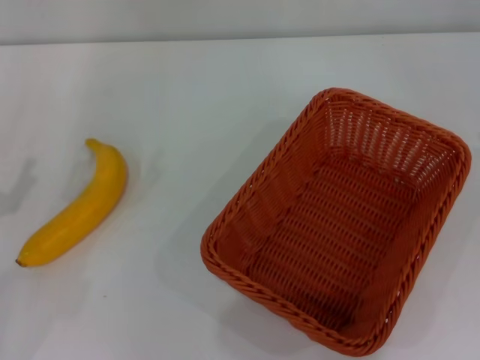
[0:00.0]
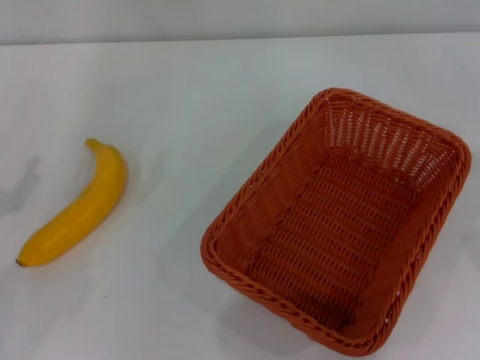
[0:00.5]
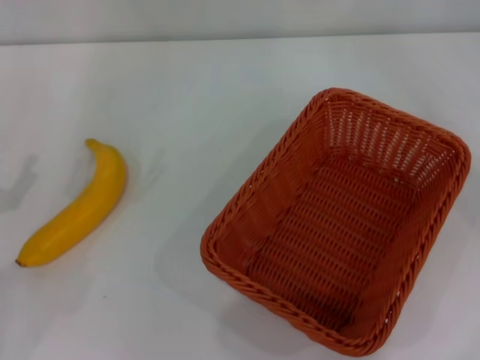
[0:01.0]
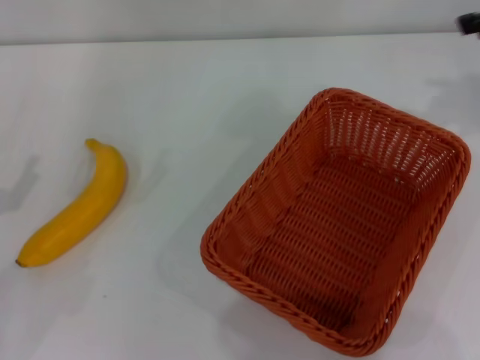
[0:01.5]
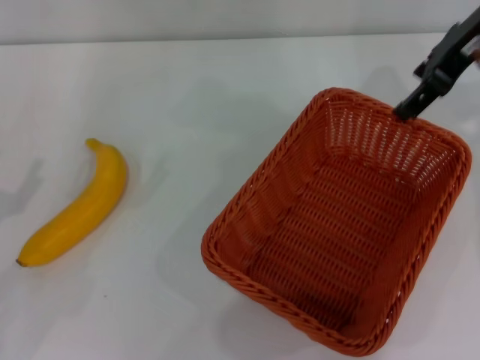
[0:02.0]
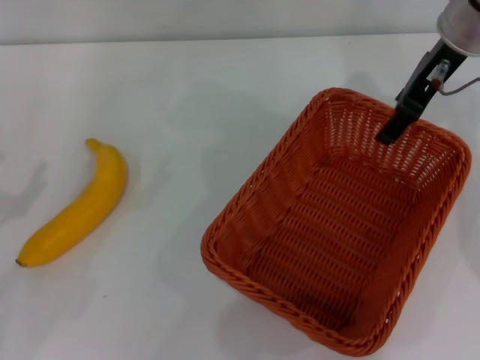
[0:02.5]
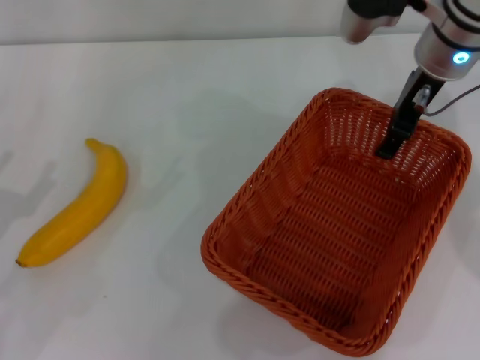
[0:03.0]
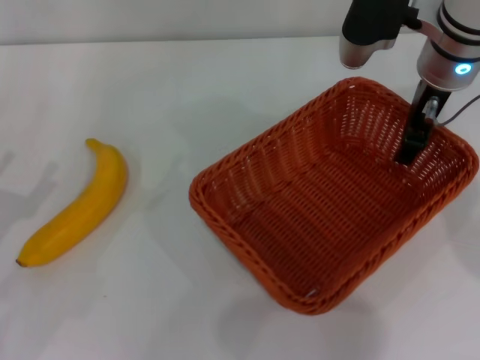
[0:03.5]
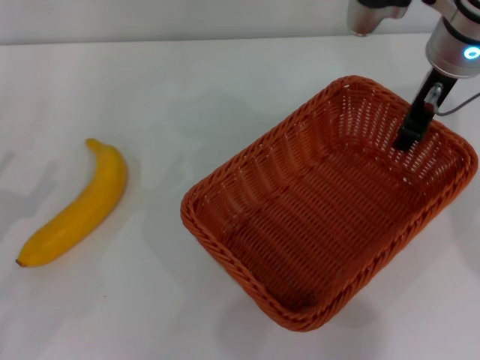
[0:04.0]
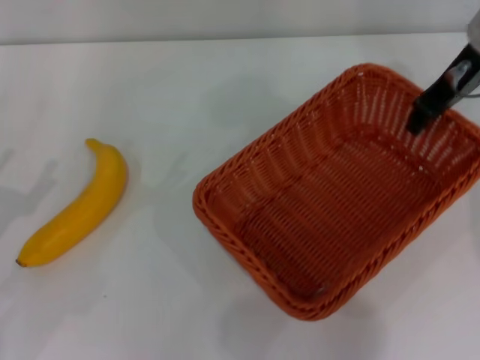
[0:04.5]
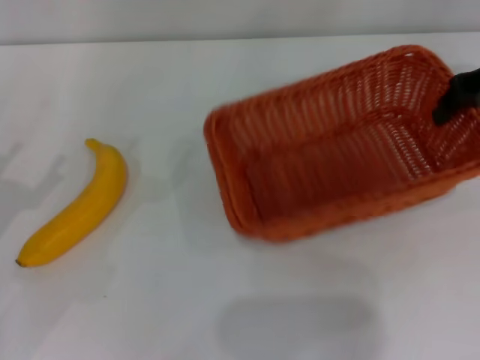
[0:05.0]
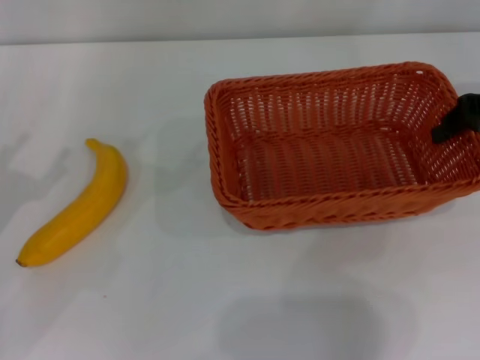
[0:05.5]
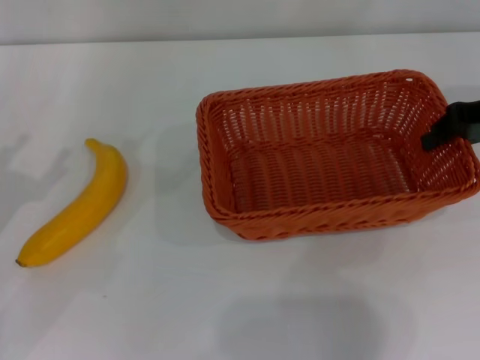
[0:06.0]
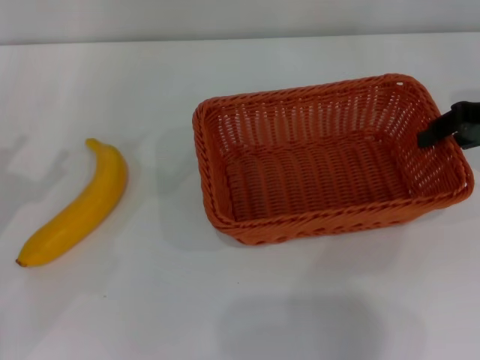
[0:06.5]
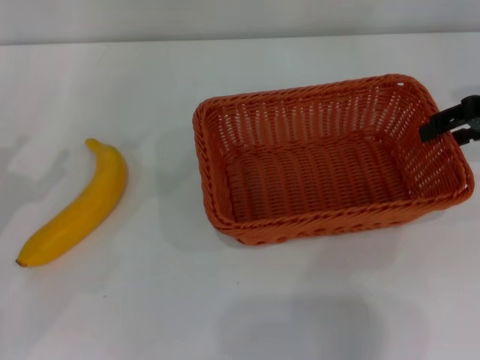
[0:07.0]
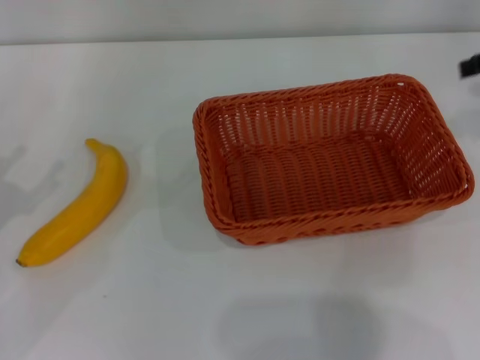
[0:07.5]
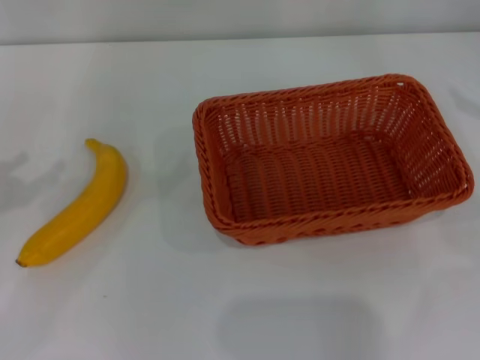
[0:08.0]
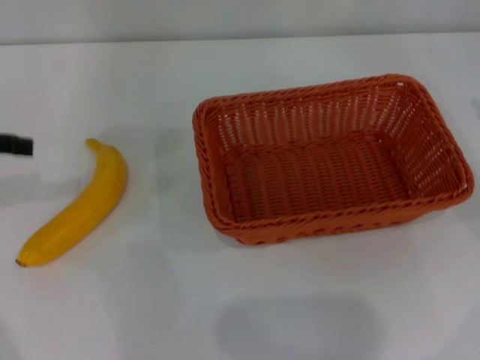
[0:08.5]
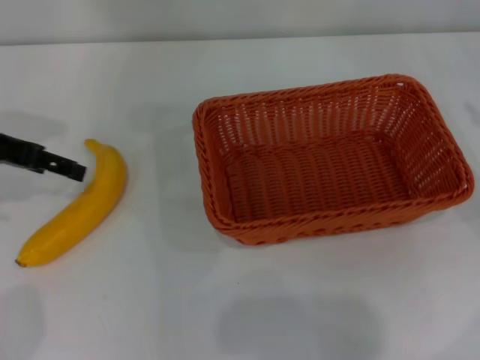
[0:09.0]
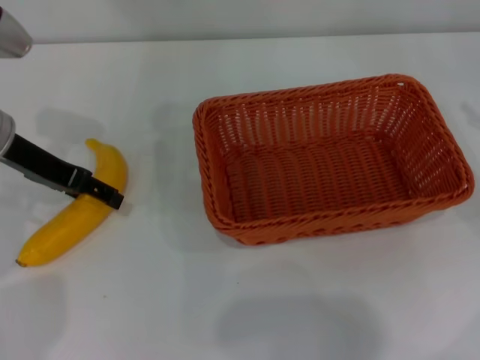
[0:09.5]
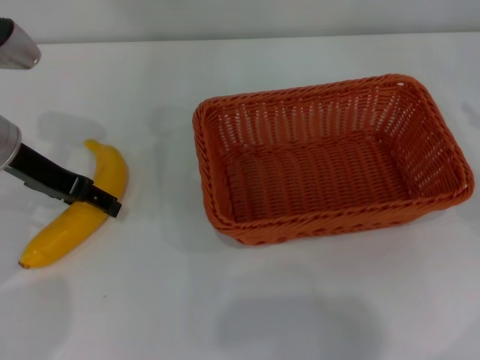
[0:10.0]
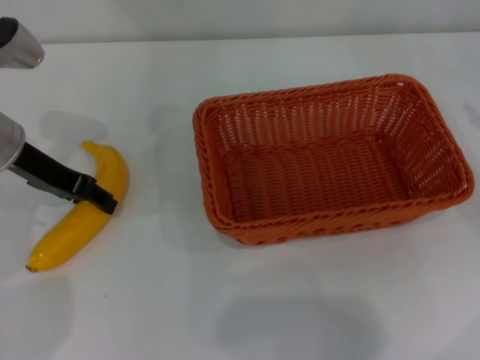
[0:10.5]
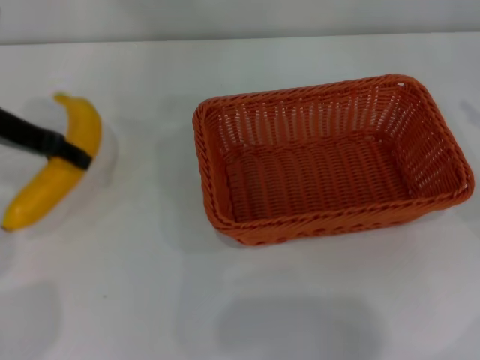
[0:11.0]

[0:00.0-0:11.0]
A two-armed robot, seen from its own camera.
Step, 0:00.0 to 0:05.0: Pick up the light basket with the right gripper.
Step, 0:05.5 to 0:07.0: Place the light basket in the center of view with the right gripper.
Step, 0:07.5 to 0:10.5: Pick up the banana with the left gripper.
0:00.0 to 0:02.0: The right gripper shifts about 35 cm to the left, upward and forward.
0:02.0 to 0:03.5: The right gripper goes about 10 cm downward.
0:03.5 to 0:05.5: The right gripper heads to the right, covering roughly 15 cm, and closes its fingers.
0:05.5 to 0:07.5: The right gripper is displaced upward by approximately 5 cm, and opens up.
0:07.5 to 0:09.0: The left gripper heads forward and upward, covering about 15 cm.
0:09.0 to 0:11.0: The left gripper closes its fingers.

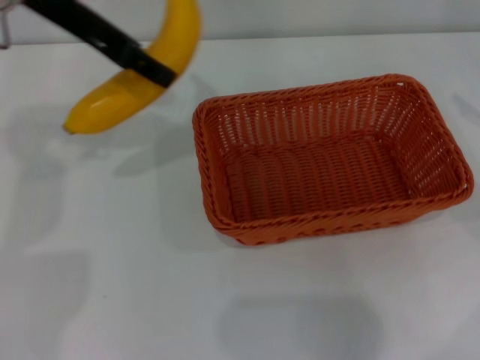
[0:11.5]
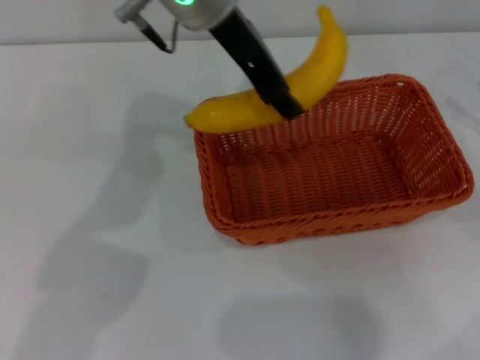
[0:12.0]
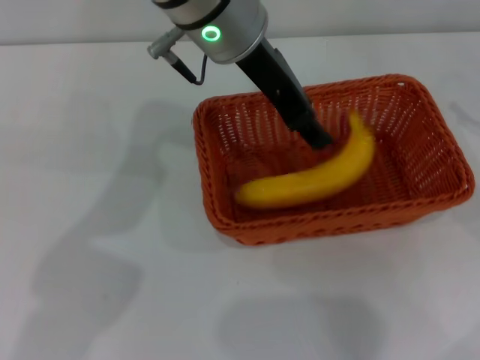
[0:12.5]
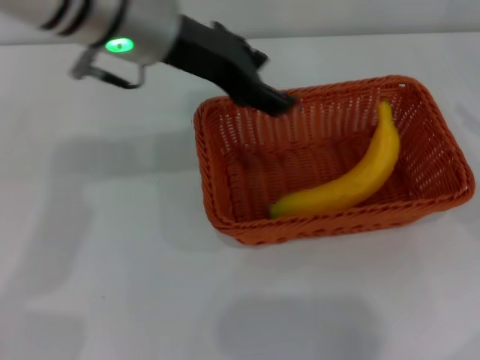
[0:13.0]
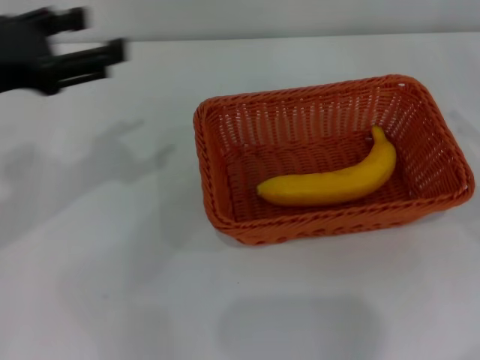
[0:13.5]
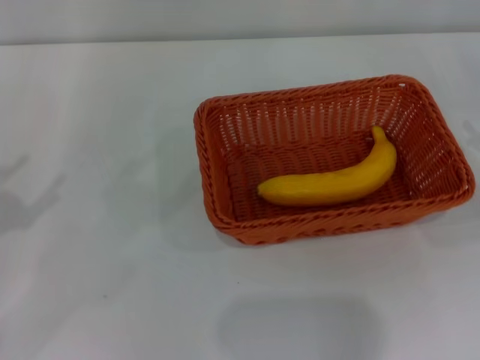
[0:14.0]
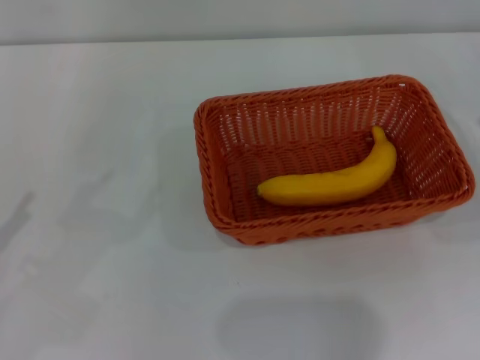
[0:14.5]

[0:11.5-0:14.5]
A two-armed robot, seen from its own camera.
Step, 0:11.5 to 0:12.5: Place the banana into the light basket with the left gripper.
0:11.5 to 0:13.0: The left gripper is displaced to the right by approximately 10 cm, and opens its fingers.
0:13.0 to 0:14.5: The right gripper heads downward, covering roughly 5 cm, while the left gripper moves to the left, backward and downward, approximately 35 cm.

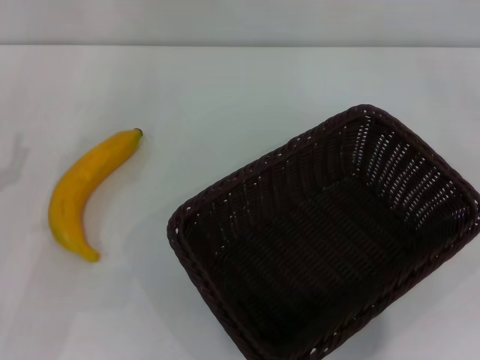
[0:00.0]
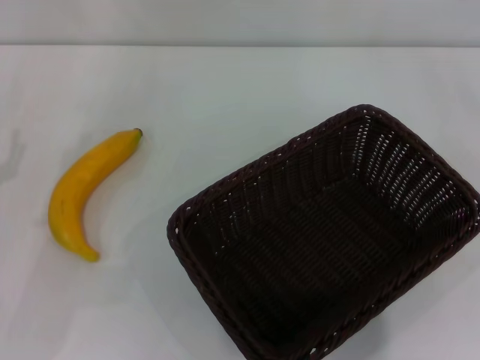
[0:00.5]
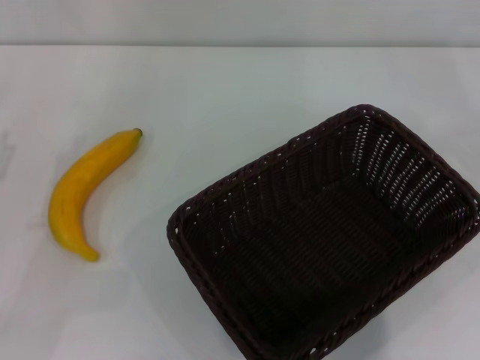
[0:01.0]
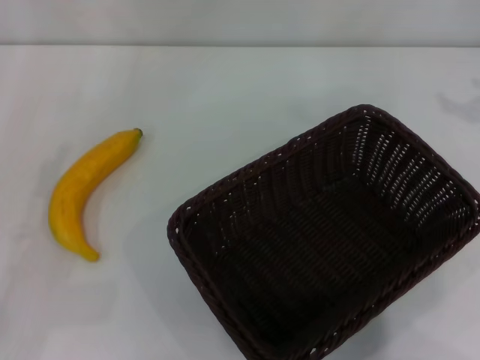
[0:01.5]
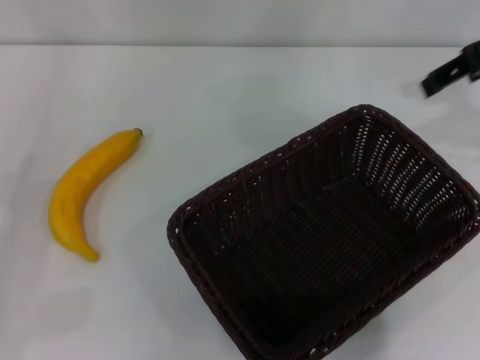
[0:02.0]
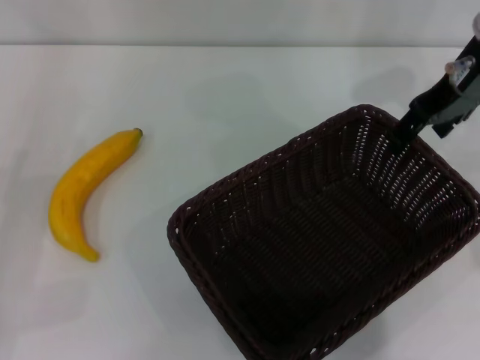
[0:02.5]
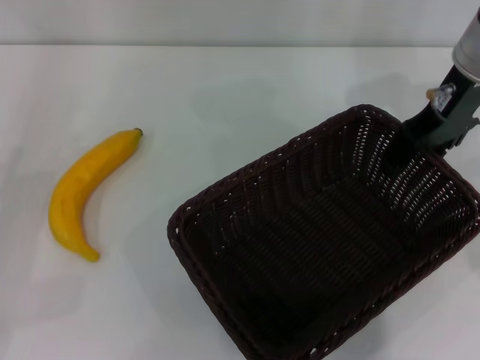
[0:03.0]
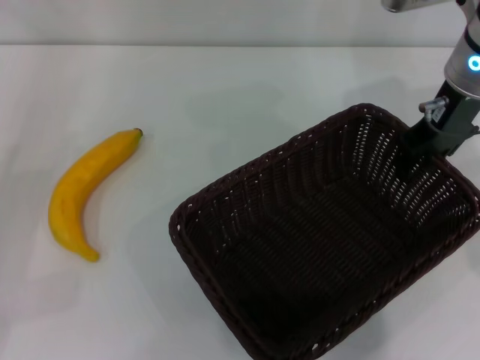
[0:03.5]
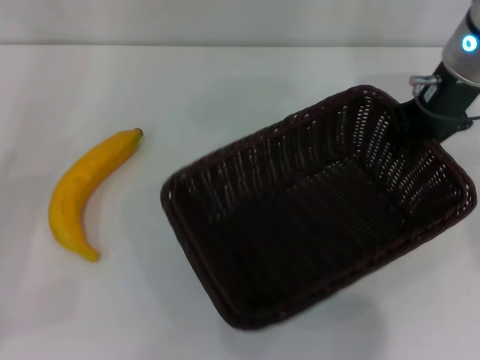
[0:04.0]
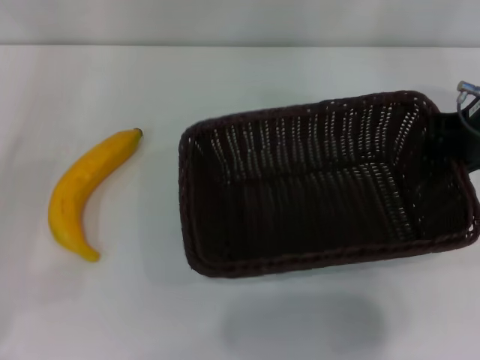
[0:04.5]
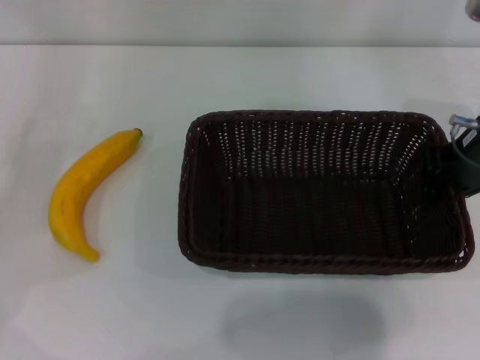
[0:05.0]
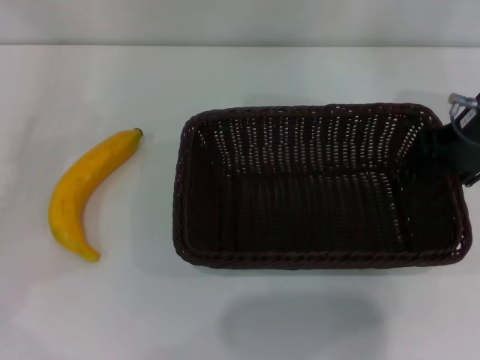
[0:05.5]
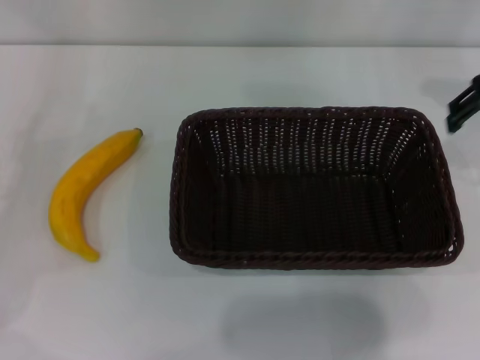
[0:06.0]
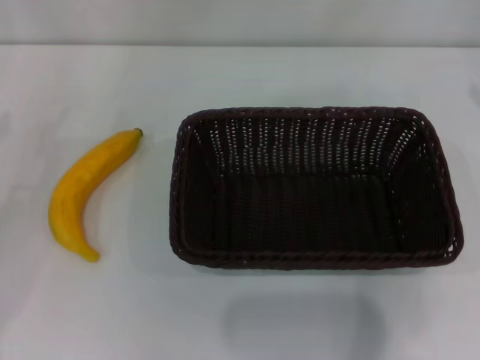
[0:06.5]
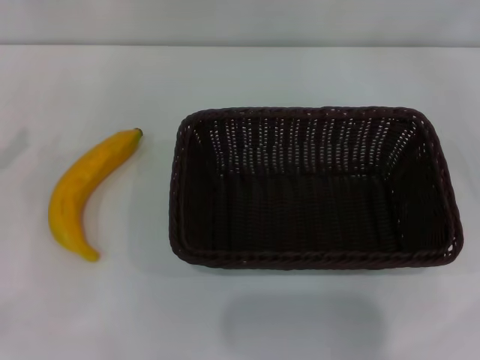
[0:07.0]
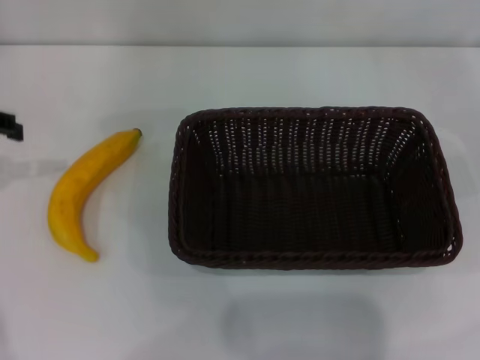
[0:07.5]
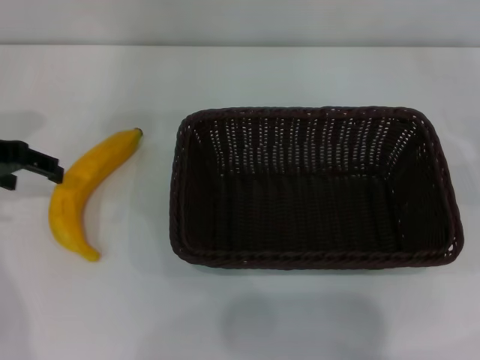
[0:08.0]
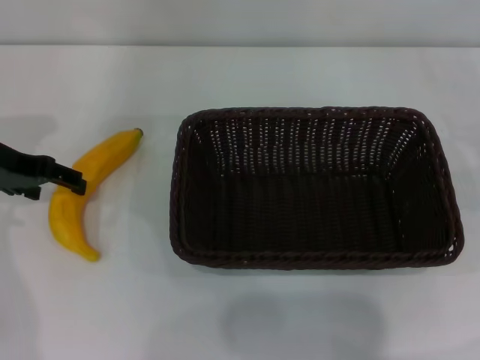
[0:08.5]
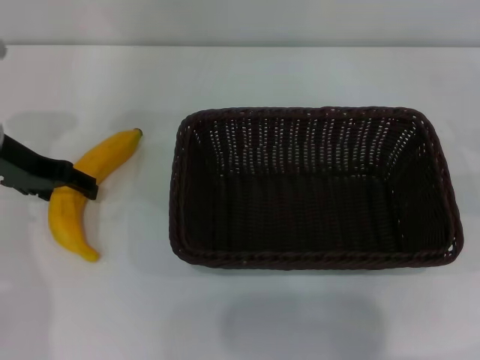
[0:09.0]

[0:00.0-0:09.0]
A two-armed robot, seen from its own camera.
Step, 0:00.0 to 0:03.5: Pick up the dark basket with the right gripper.
Step, 0:04.0 to 0:05.5: Place the dark basket in the center of view with the right gripper.
0:00.0 to 0:02.0: The right gripper travels upward, to the left and forward by some 30 cm.
0:02.0 to 0:04.5: The left gripper moves roughly 5 cm. The right gripper shifts roughly 5 cm downward, and closes up.
0:04.5 to 0:07.0: The left gripper moves upward, some 5 cm. Meanwhile the right gripper travels to the right by some 20 cm, and opens.
0:07.0 to 0:09.0: The left gripper travels to the right and forward by some 15 cm.

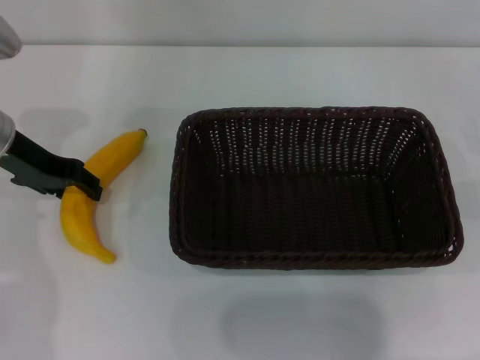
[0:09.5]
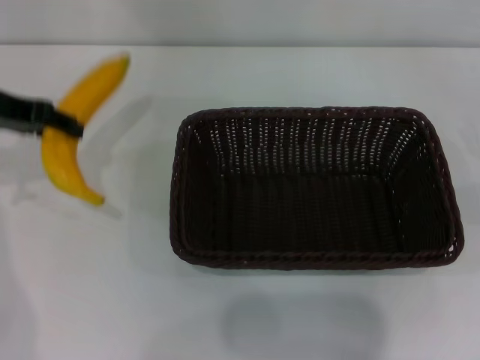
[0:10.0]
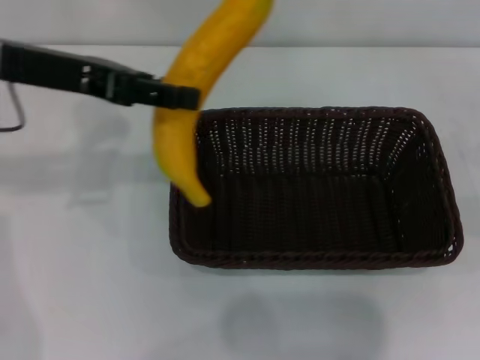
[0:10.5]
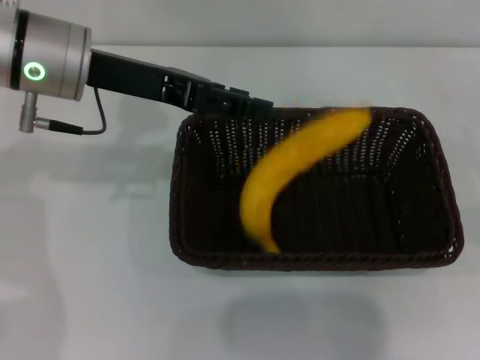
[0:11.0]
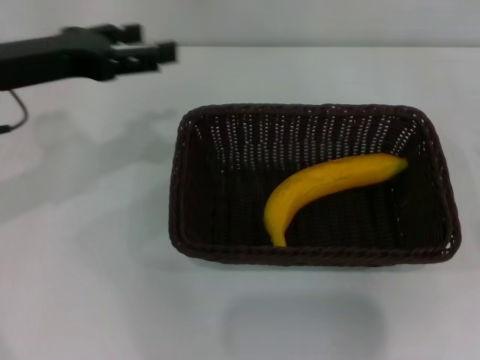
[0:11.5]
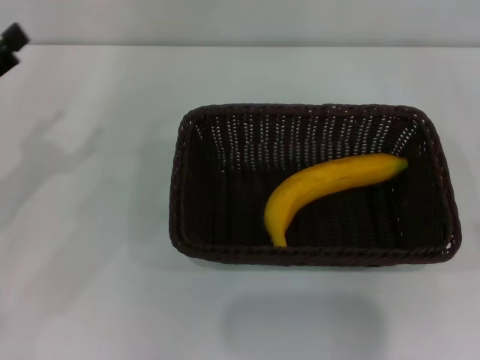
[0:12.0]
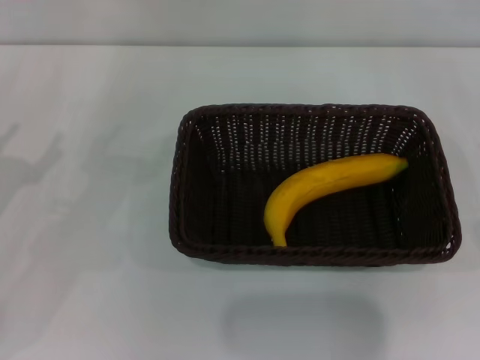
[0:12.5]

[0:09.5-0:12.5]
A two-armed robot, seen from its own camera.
Step, 0:10.0 to 0:11.0: Place the banana into the dark basket with the left gripper.
0:09.5 to 0:11.0: The left gripper heads to the right and upward, covering approximately 10 cm.
0:11.0 to 0:12.5: The left gripper goes approximately 25 cm to the left, downward and backward, and opens up.
